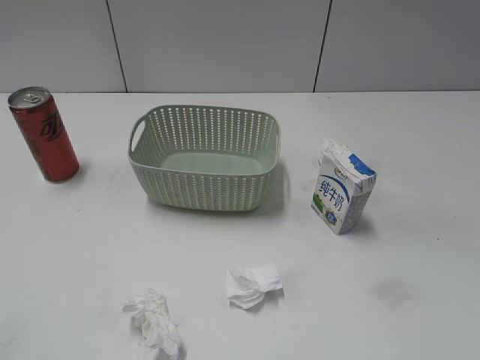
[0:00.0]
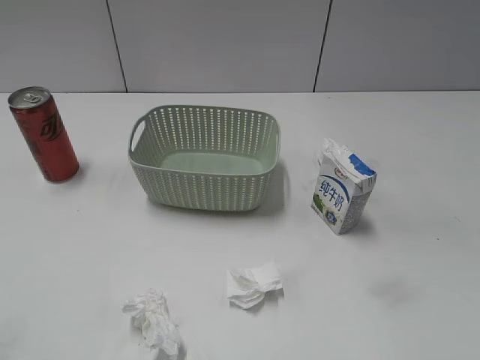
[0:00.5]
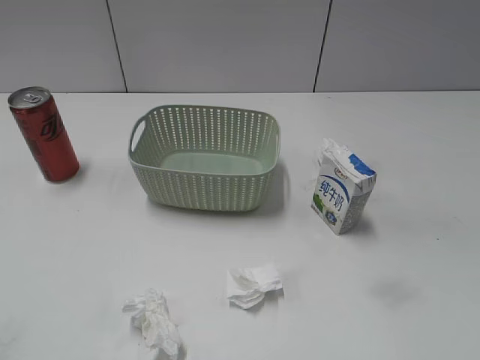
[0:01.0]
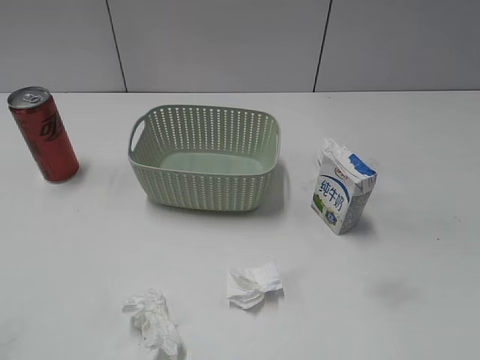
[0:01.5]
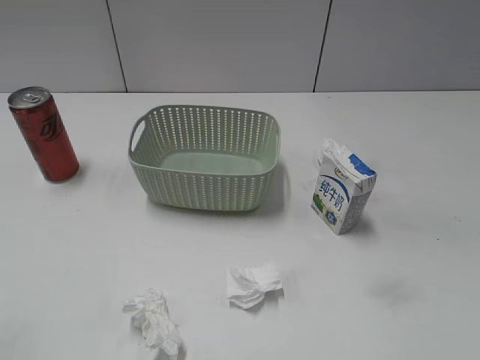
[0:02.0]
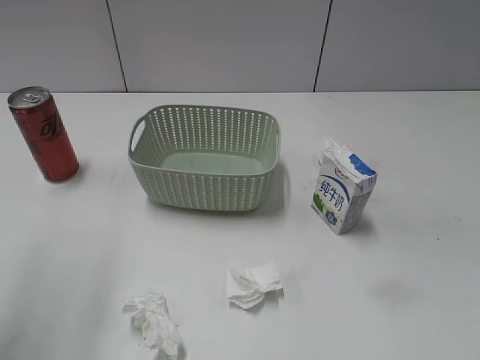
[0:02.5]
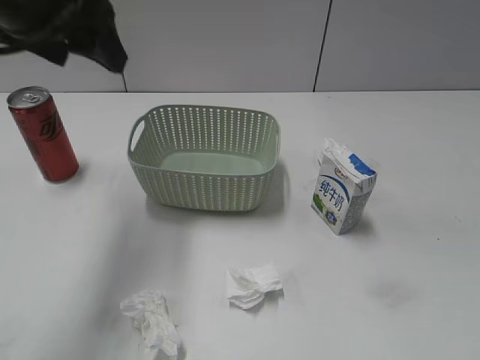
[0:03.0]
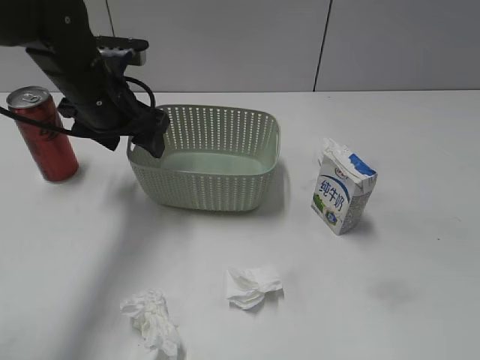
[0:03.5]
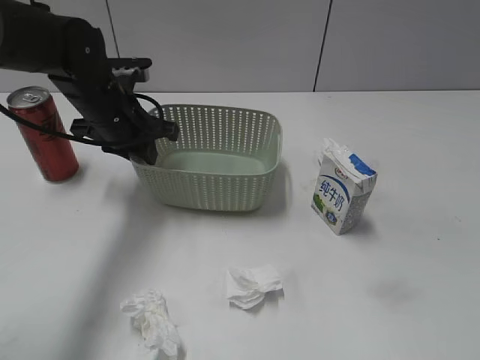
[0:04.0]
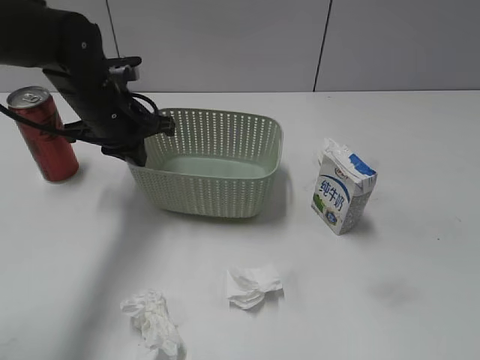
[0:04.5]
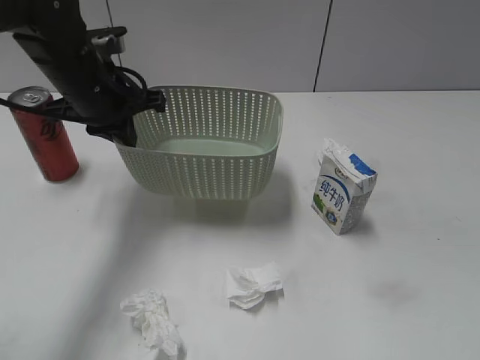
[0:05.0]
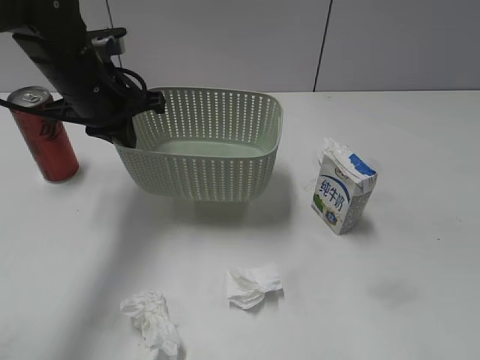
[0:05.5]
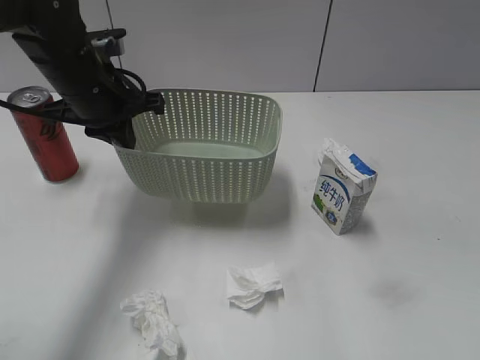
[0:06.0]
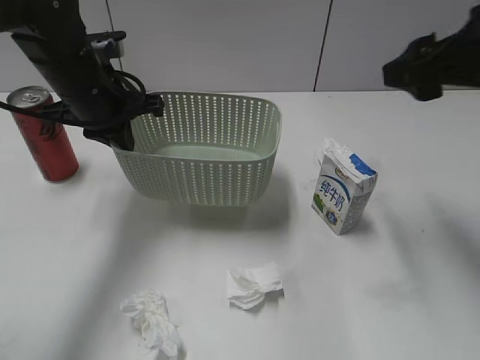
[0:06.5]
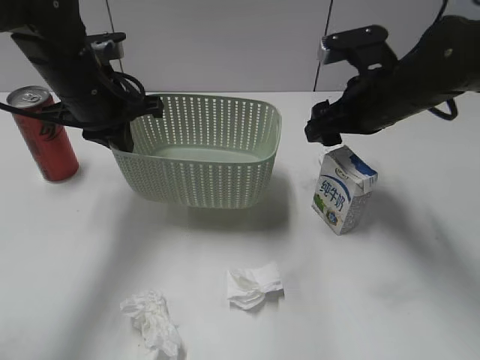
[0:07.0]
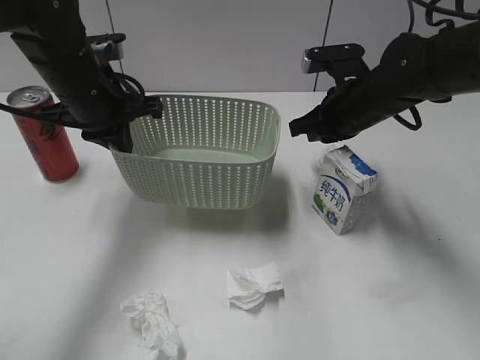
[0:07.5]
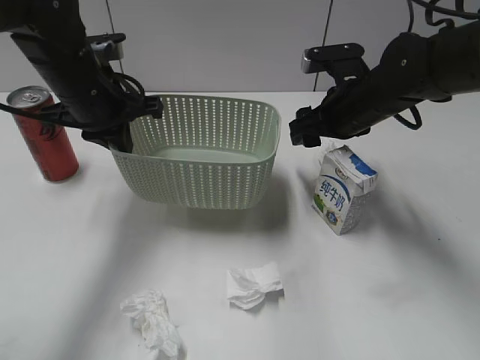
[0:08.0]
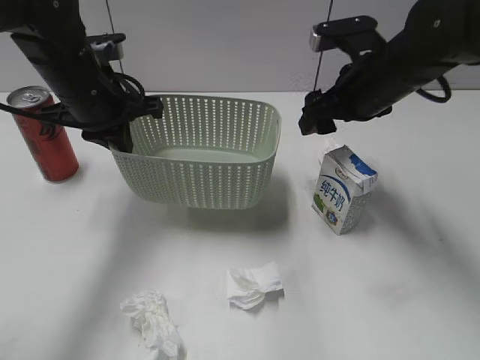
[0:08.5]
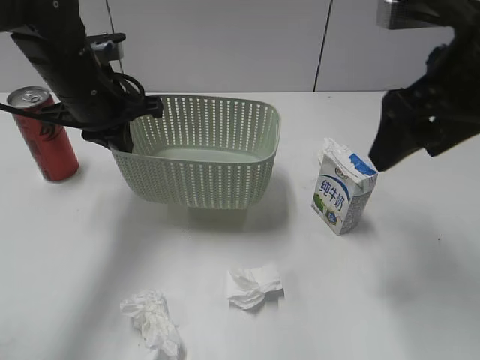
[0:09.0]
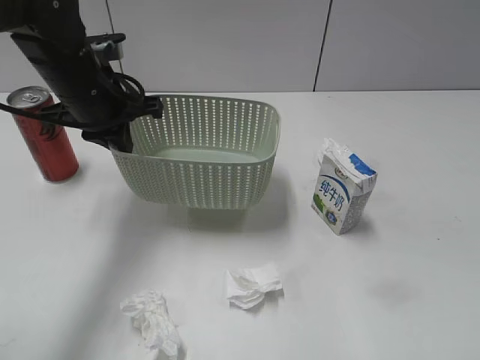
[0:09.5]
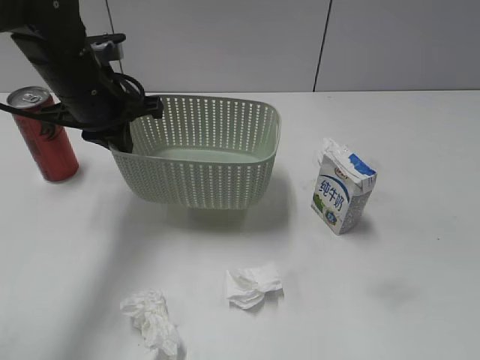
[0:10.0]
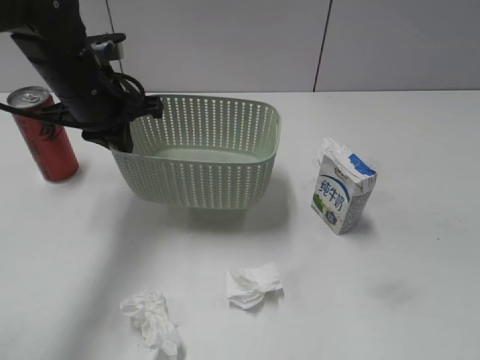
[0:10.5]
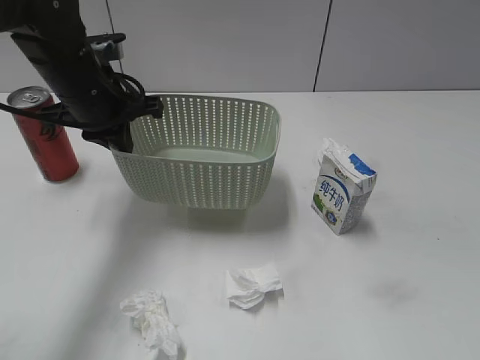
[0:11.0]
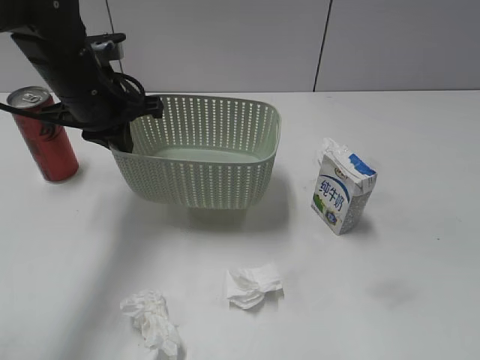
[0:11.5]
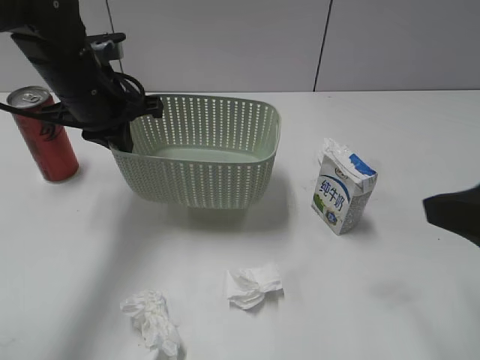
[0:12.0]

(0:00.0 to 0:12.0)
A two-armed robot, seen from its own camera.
Step, 0:03.0 - 0:04.0: Grasp the basket with left gripper.
Step, 0:04.5 - 0:06.0: Lift the basket with left gripper.
0:02.0 - 0:04.0: The left gripper moves forward, downward and to the right, approximately 40 cm, and closes its fingers.
0:04.0 - 0:06.0: The left gripper shifts by roughly 5 cm, and closes its fingers. Meanwhile the right gripper goes roughly 15 cm forward and upward.
0:06.0 - 0:08.0: The right gripper shifts about 35 cm forward, downward and to the left, and closes its fingers.
0:08.0 - 0:10.0: The right gripper is displaced backward by some 35 cm, and opens.
0:10.0 - 0:12.0: The right gripper travels forward by about 10 cm.

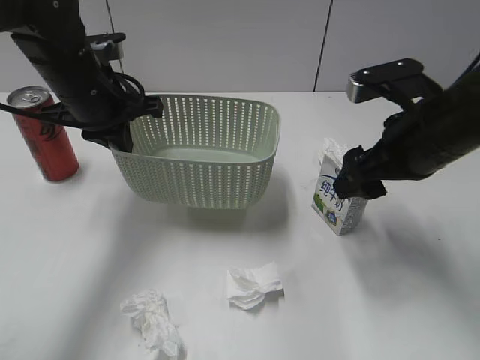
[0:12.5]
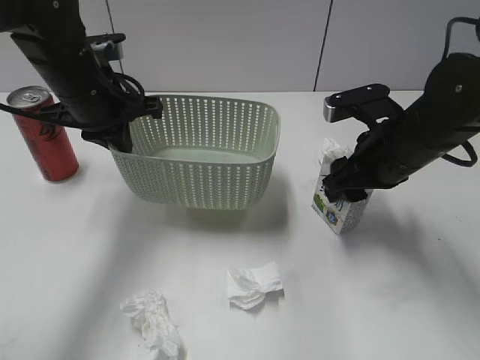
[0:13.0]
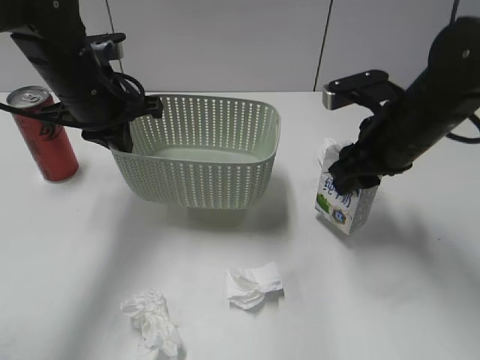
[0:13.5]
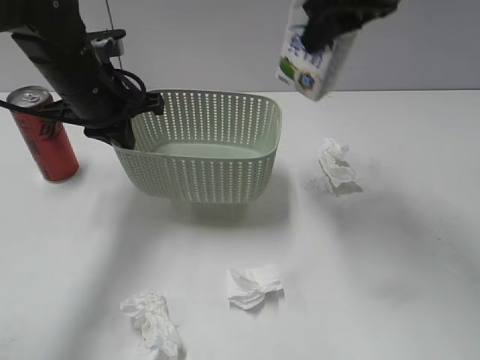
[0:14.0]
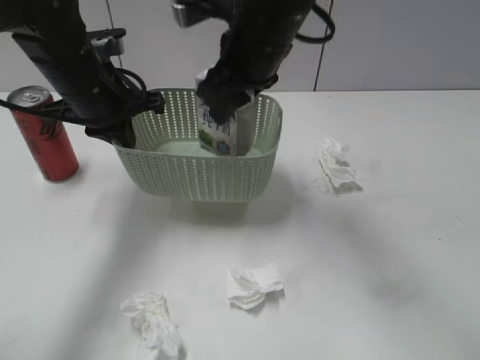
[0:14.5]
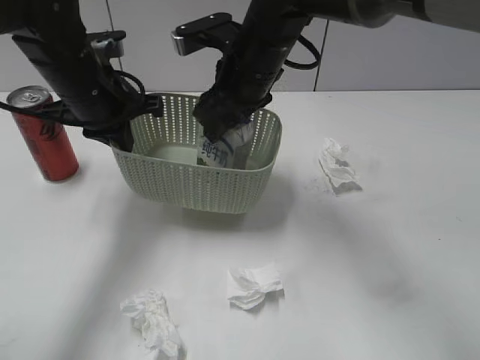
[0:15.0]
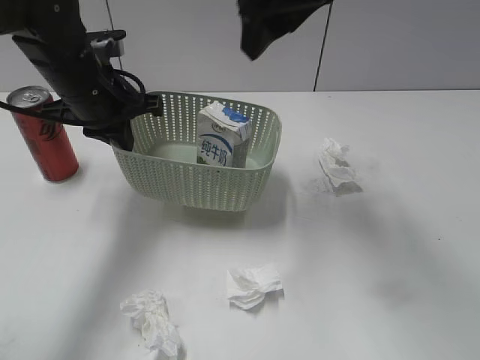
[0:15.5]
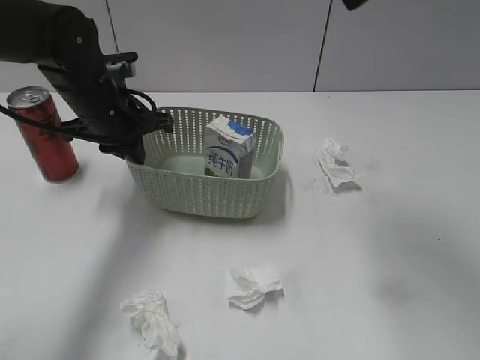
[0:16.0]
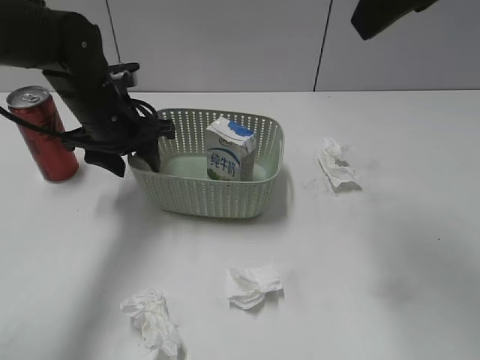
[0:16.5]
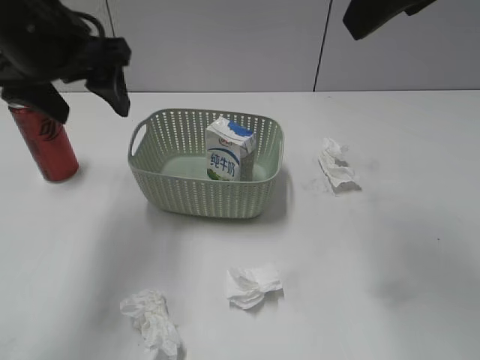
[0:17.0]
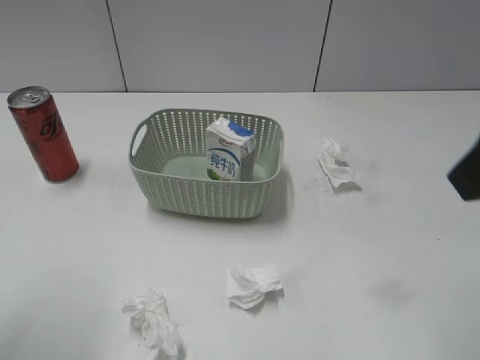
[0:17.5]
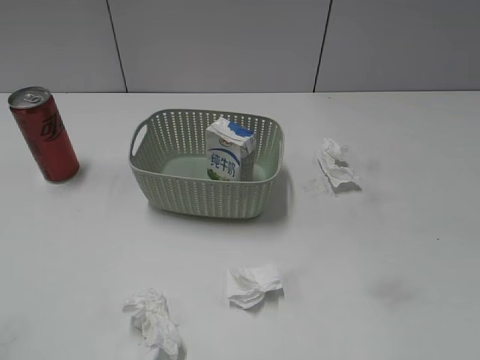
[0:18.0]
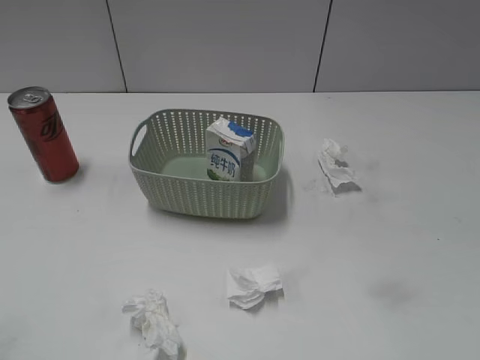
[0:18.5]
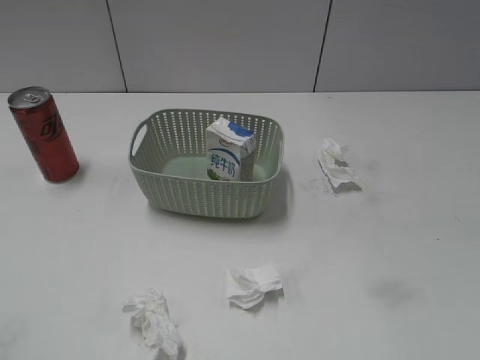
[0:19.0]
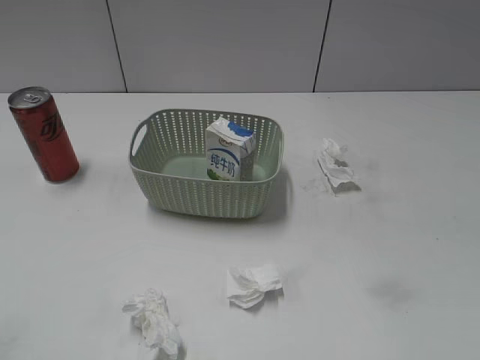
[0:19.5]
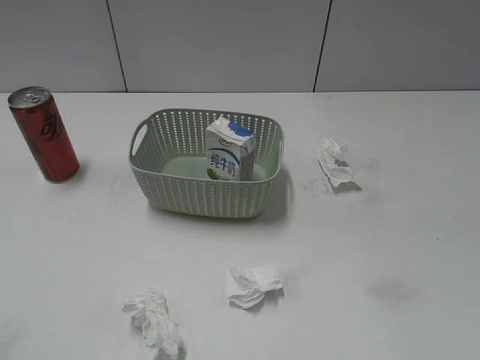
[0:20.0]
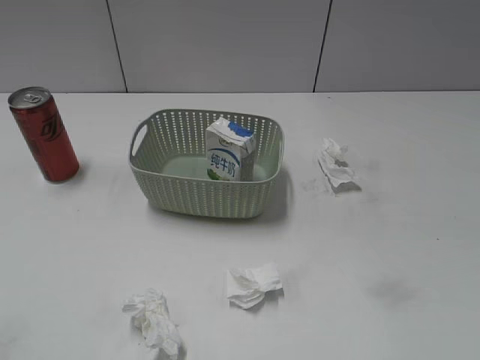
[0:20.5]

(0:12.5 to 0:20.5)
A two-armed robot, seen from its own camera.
Step, 0:13.5 - 0:15.0: Place the milk in the basket with right gripper.
Step, 0:15.5 - 0:16.5: Place the basket on the table with left gripper.
0:12.5 - 0:14.5: The right gripper swings up and down, approximately 15 cm each way, with 2 reversals, and closes its fingers.
0:14.5 - 0:16.5: The right gripper shifts some 20 cm upward, to the right and backward, and opens up. The left gripper opens up.
0:16.5 - 0:18.5: The left gripper travels backward and to the left by about 40 cm, and opens, while the right gripper shifts about 30 cm backward, to the right and downward.
